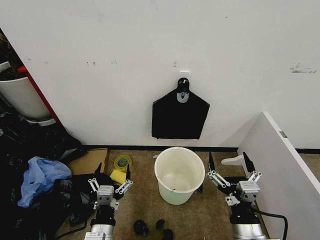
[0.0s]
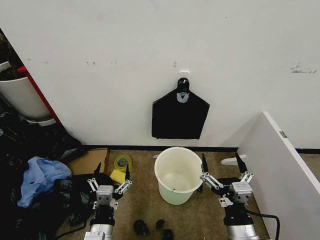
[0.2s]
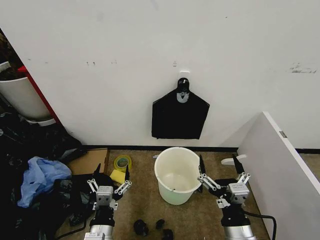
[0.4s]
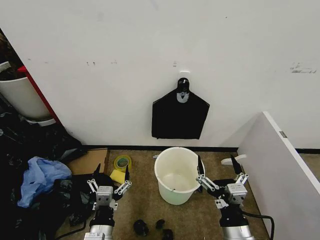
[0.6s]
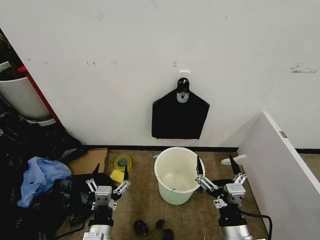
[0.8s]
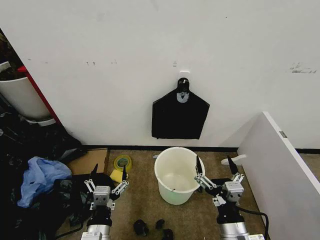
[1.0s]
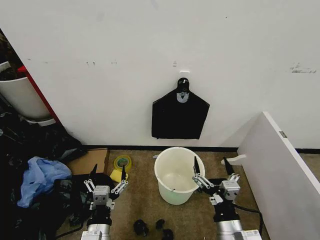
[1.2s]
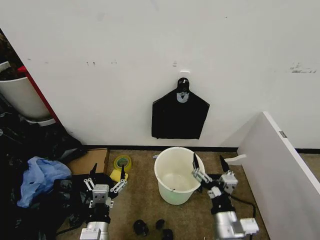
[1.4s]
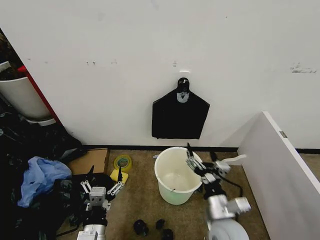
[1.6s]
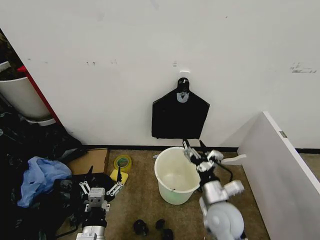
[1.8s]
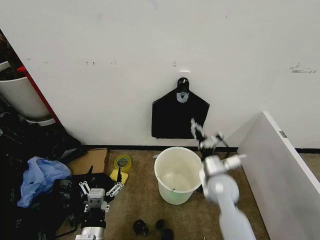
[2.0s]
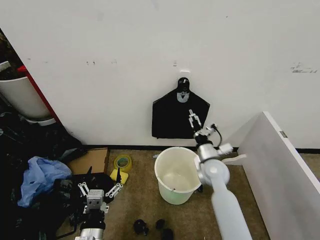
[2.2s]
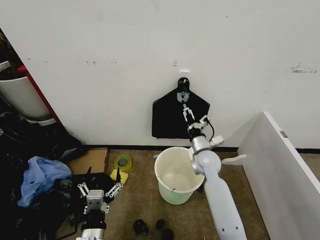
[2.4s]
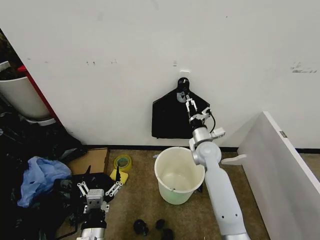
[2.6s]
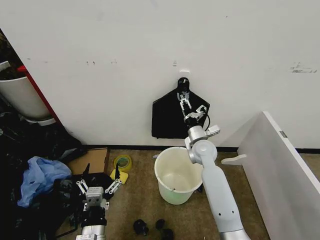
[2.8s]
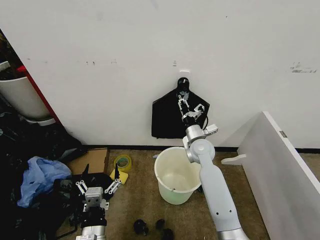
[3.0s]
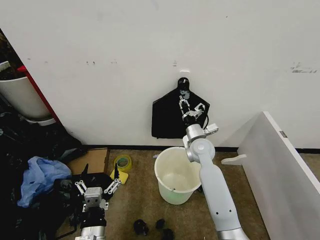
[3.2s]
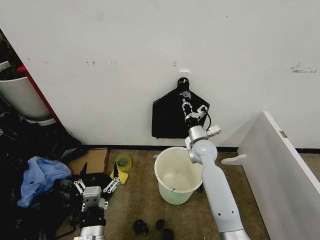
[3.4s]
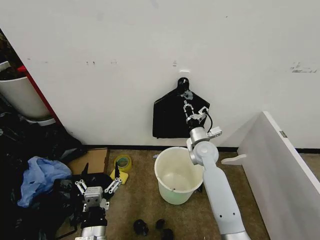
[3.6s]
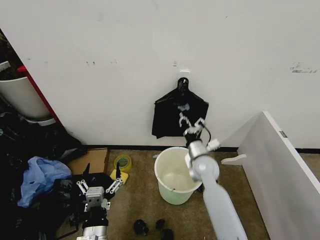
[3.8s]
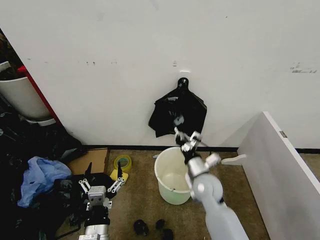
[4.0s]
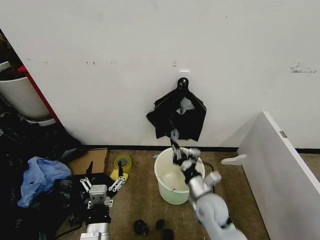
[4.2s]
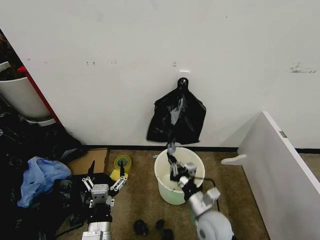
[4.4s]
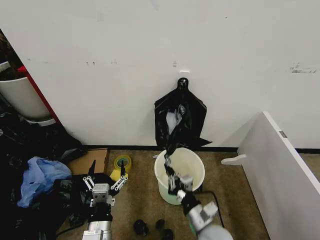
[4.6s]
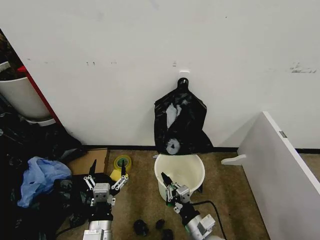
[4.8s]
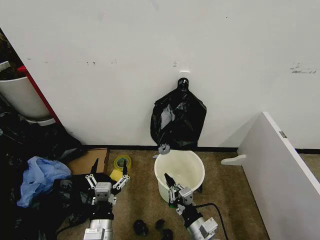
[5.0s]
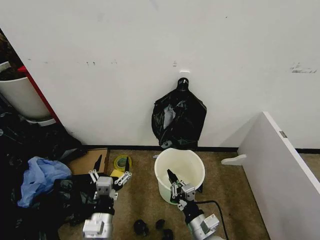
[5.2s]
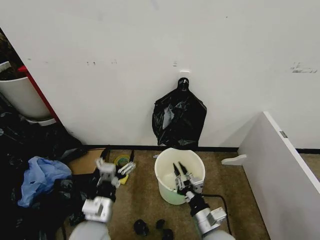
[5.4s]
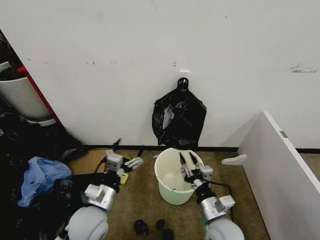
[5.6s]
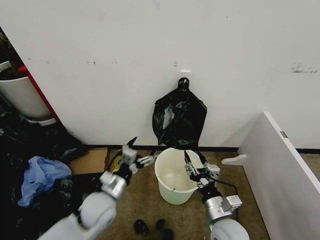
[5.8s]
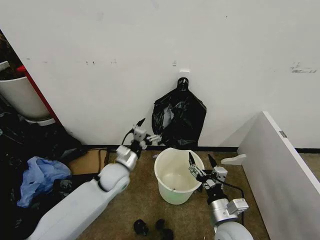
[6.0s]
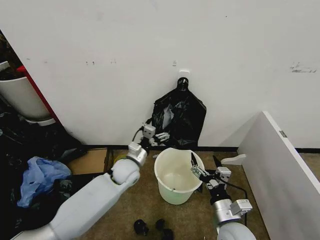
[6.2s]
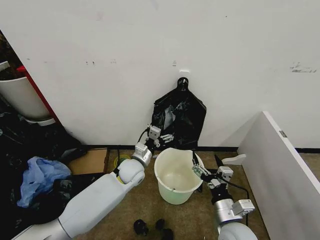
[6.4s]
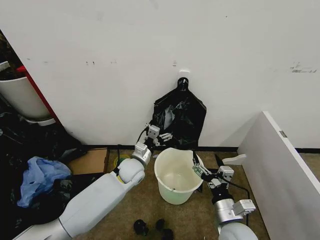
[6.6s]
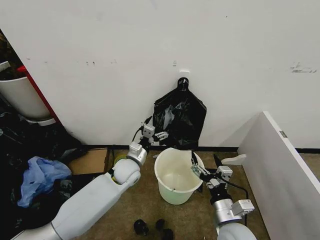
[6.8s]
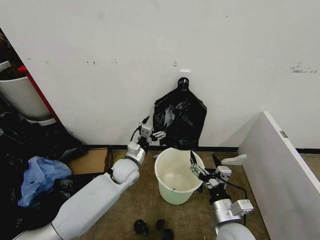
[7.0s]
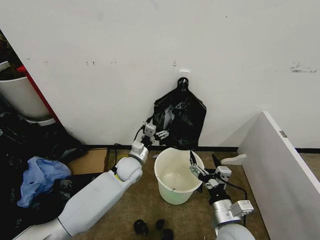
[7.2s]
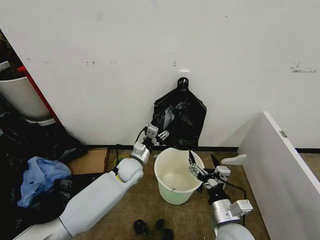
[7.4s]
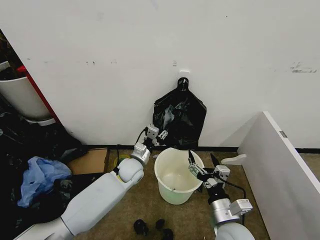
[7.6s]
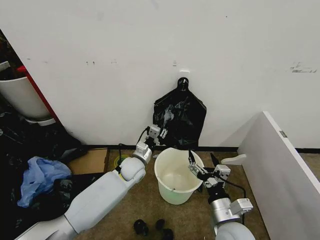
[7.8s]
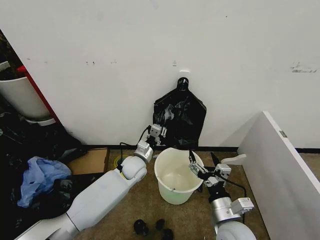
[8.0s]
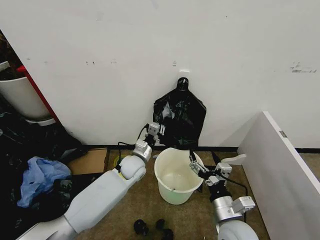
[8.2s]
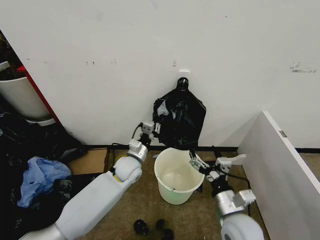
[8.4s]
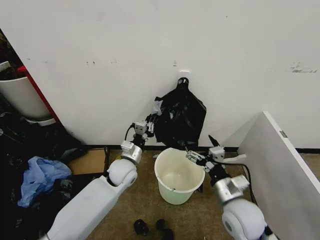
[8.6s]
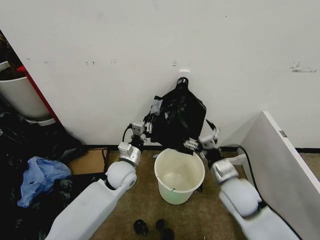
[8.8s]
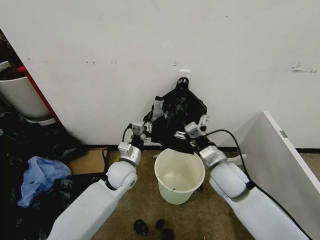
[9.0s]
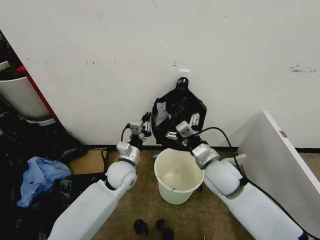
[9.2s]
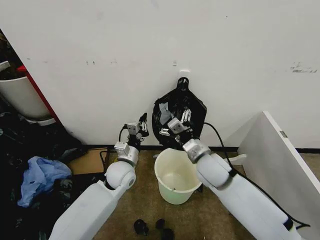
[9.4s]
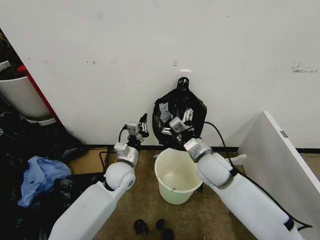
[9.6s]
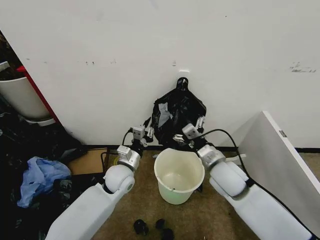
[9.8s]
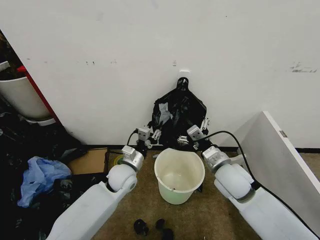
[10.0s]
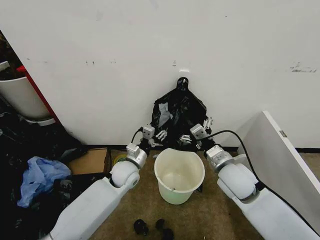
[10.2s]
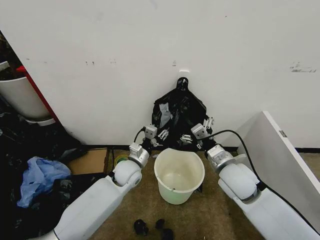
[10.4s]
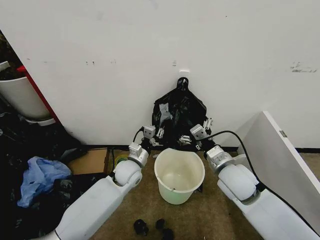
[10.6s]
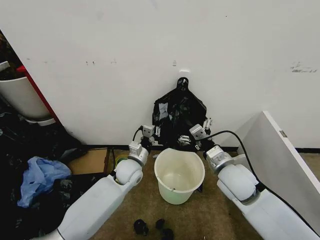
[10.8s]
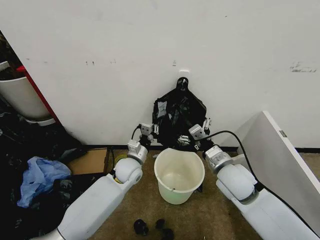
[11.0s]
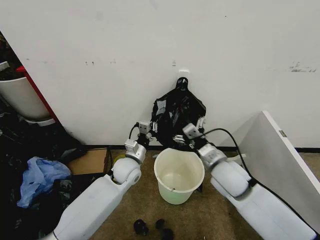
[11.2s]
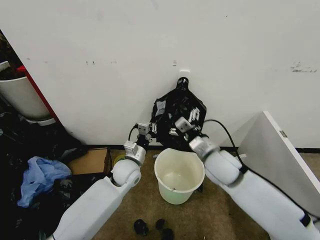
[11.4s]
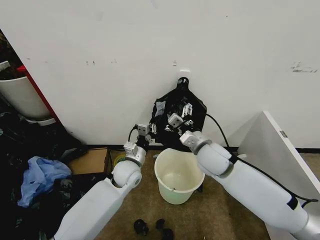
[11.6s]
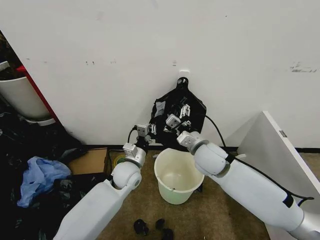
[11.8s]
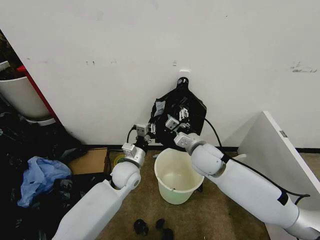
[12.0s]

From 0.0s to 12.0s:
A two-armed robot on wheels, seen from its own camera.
Task of the whole recording: Place the garbage bag over the trash bin.
From 1.6s to 3.0s: The right gripper goes roughly 25 cm forward, and closes.
From 3.0s to 4.4s: The right gripper moves backward, about 25 cm, and closes its fingers.
From 4.4s to 6.0s: The left gripper shifts roughly 25 cm forward. The right gripper shifts by about 5 cm, and opens.
From 6.0s to 7.6s: The left gripper is displaced forward by roughly 5 cm, and closes its fingers.
From 7.6s to 9.0s: The left gripper changes place by some 5 cm, and closes, while the right gripper heads forward and upward, covering roughly 15 cm.
From 9.0s to 10.4s: The left gripper opens up.
From 10.4s to 12.0s: The left gripper closes; the right gripper shifts approximately 10 cm to the left and forward.

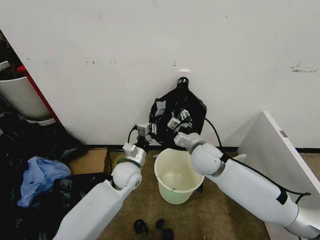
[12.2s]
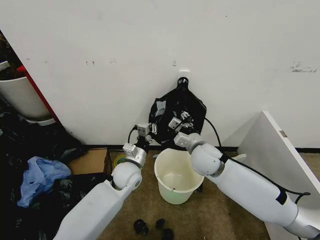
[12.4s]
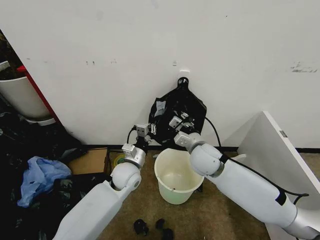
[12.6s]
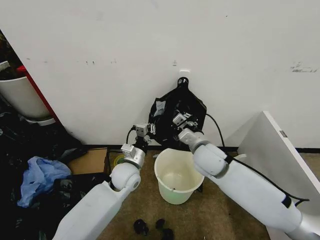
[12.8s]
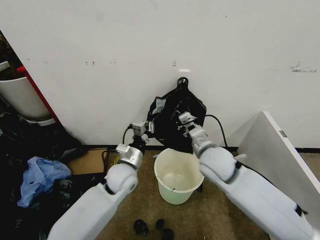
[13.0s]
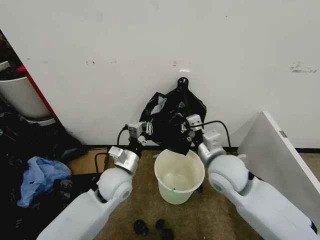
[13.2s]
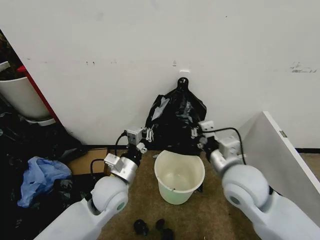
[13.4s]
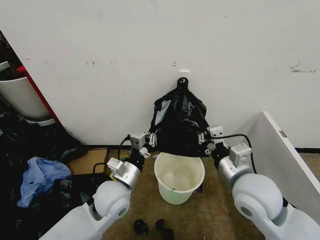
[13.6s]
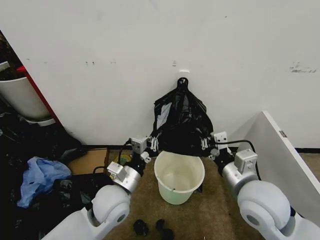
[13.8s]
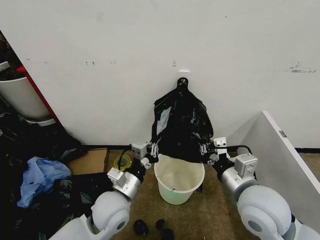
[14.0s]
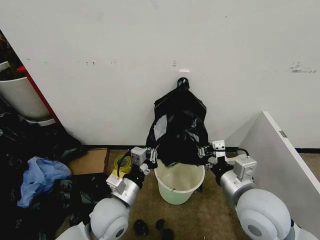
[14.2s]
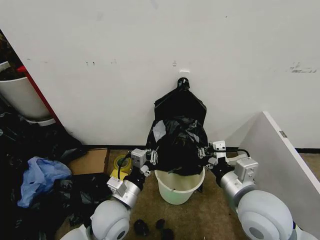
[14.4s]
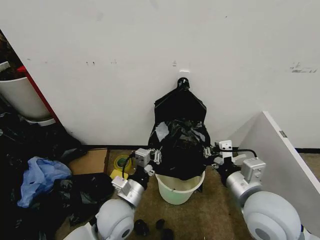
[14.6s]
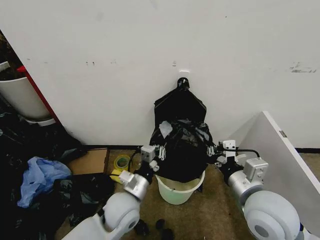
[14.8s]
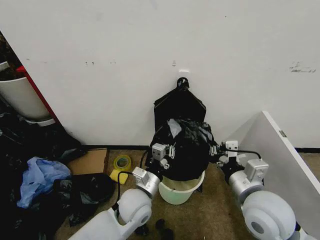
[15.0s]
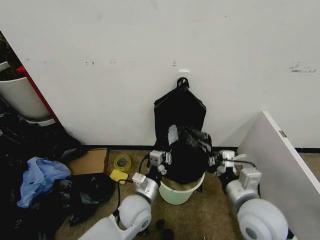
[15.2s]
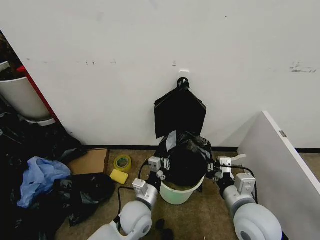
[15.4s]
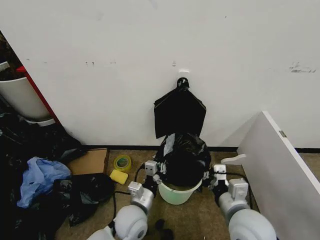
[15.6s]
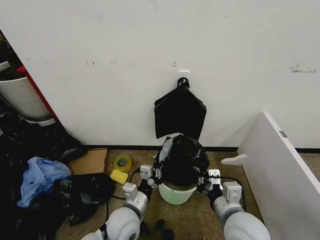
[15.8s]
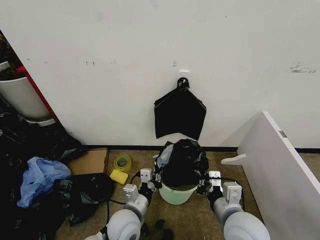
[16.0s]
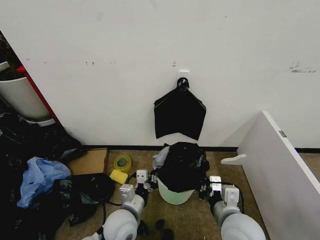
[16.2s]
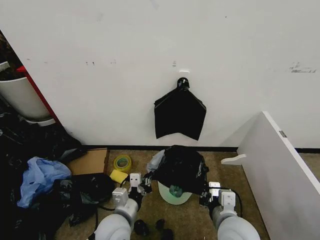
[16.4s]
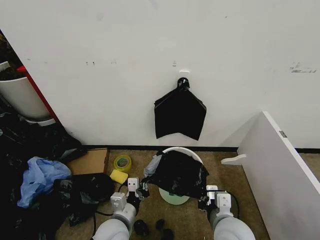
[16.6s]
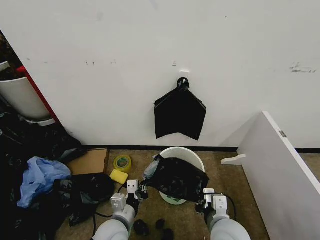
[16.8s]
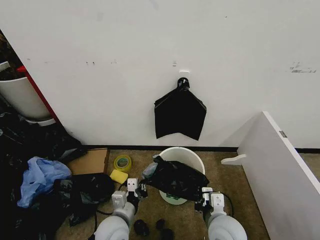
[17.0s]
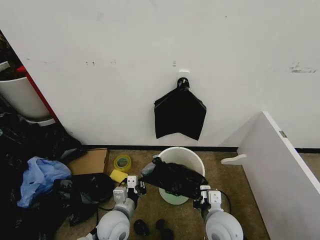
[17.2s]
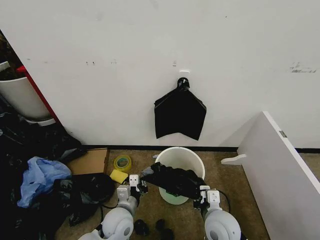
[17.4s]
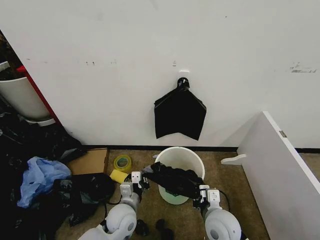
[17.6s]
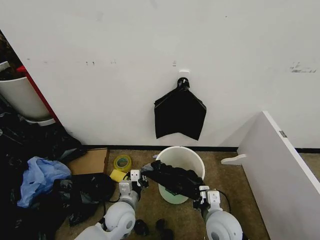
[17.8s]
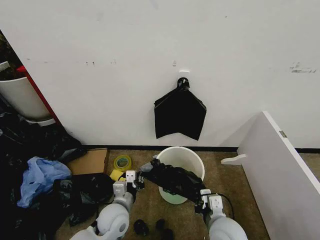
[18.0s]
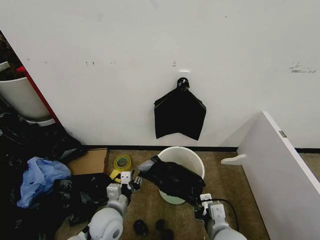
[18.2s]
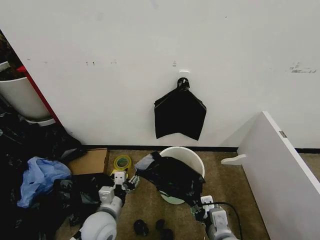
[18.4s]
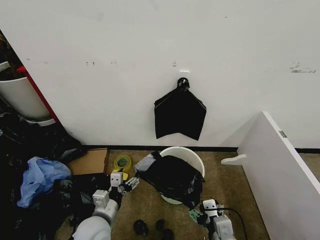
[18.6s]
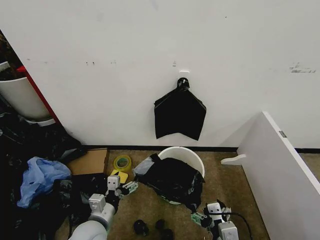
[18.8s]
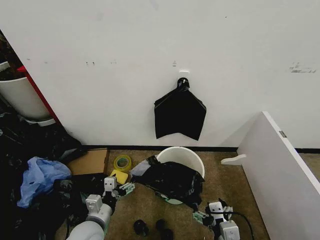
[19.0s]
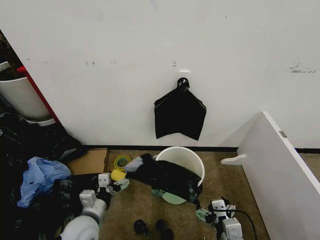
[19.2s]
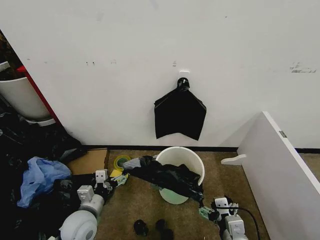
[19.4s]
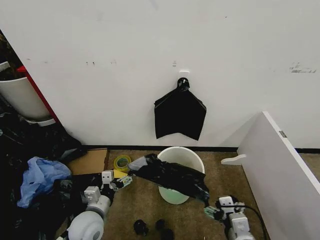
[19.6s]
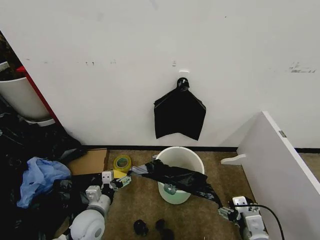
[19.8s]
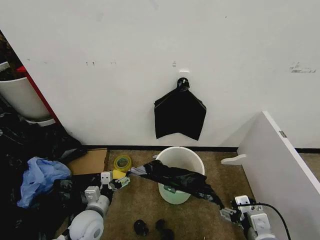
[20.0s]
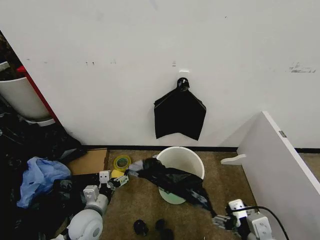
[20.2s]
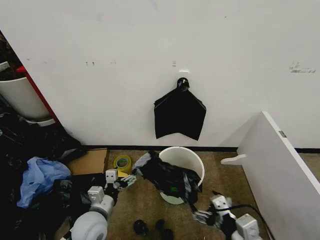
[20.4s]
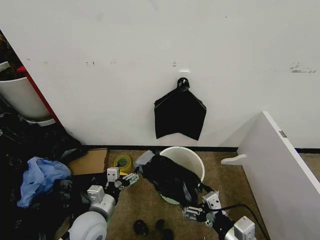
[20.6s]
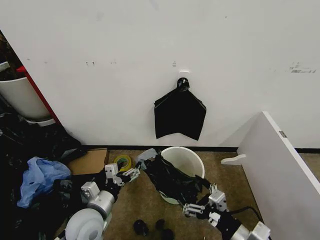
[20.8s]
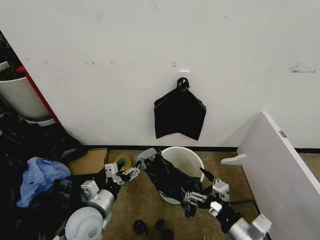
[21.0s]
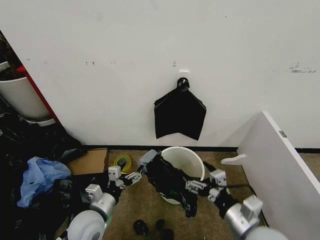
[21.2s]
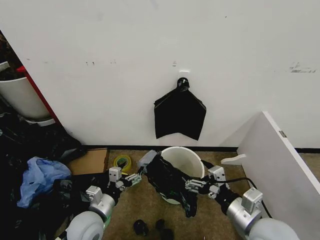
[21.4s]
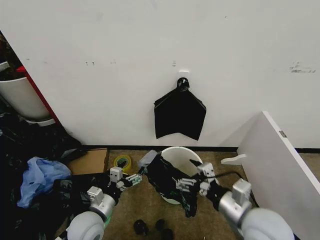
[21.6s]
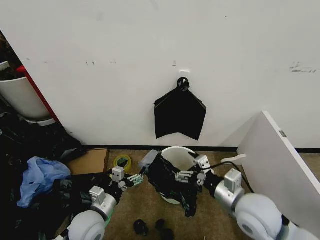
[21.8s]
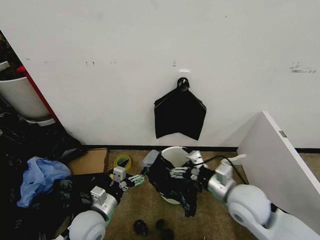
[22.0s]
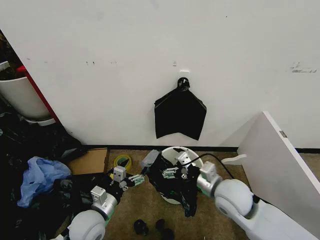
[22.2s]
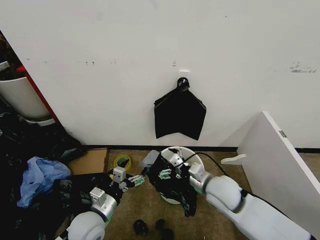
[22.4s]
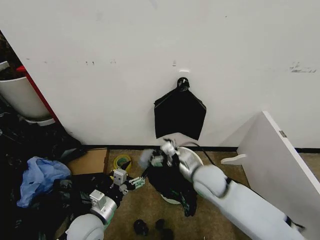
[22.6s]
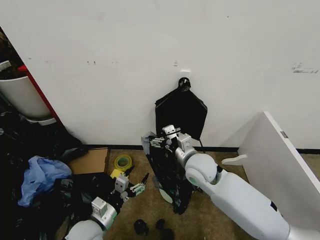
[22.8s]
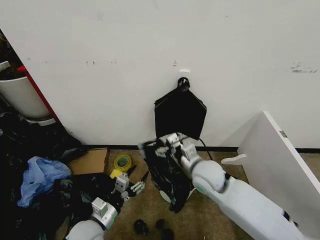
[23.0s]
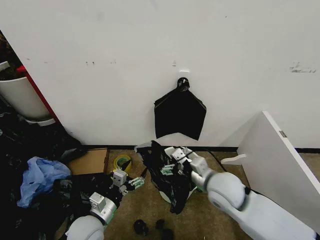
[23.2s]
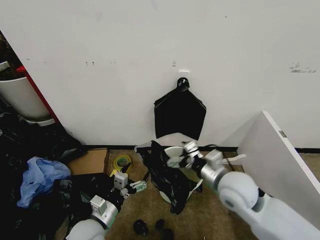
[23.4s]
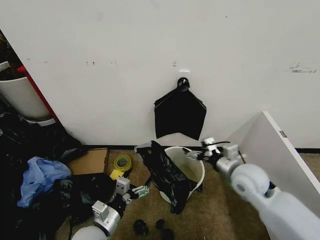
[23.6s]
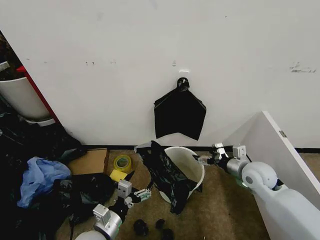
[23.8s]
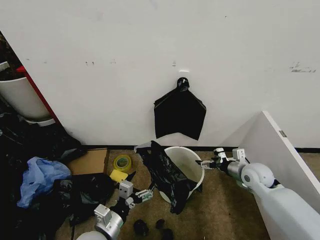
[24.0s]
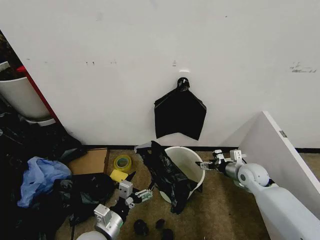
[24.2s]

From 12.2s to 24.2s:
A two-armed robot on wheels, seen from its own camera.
Task of the whole recording: Place the garbage bag over the trash bin.
From 12.2s to 13.8s: The right gripper goes roughly 15 cm backward and to the right, and closes up. The left gripper is displaced backward and upward by about 10 cm.
From 13.8s to 15.2s: The left gripper shifts approximately 10 cm downward and to the right. Meanwhile the right gripper ends up approximately 5 cm from where it was.
From 15.2s to 16.6s: The right gripper is displaced downward and to the left by approximately 10 cm, while the left gripper is displaced backward and to the left by some 10 cm.
From 16.6s to 18.2s: The right gripper opens. The left gripper opens.
From 18.2s to 19.8s: The right gripper moves to the right, some 10 cm, and opens up; the left gripper goes roughly 5 cm to the left, and opens up.
From 19.8s to 21.2s: The right gripper heads upward, covering approximately 5 cm.
From 21.2s to 22.6s: The right gripper goes approximately 20 cm forward and to the left.
From 22.6s to 24.2s: The right gripper travels to the right by about 20 cm. Meanwhile the left gripper changes place by about 5 cm.
